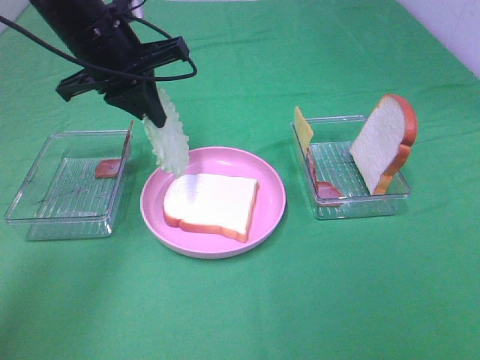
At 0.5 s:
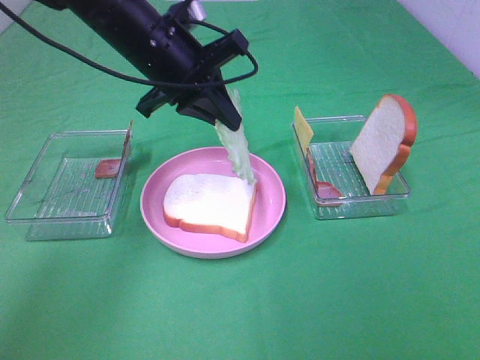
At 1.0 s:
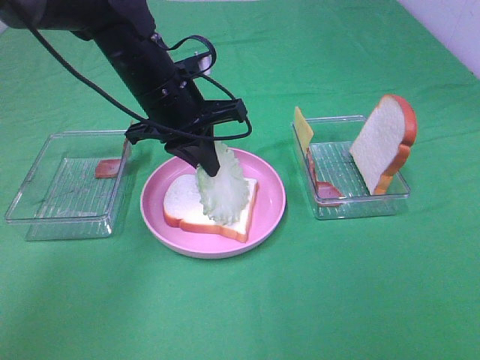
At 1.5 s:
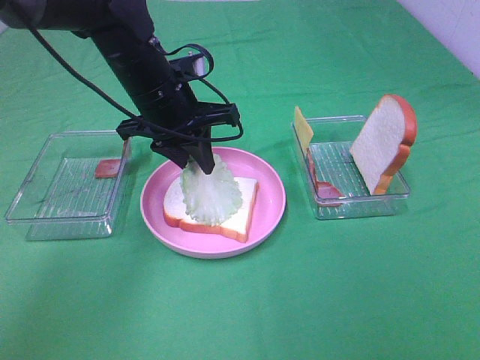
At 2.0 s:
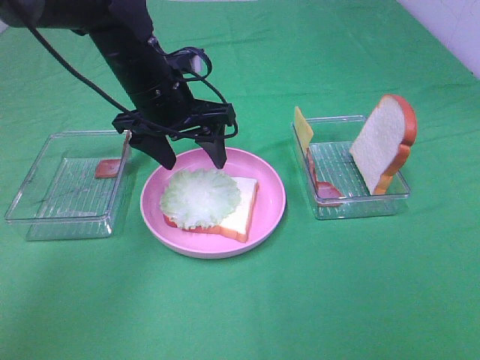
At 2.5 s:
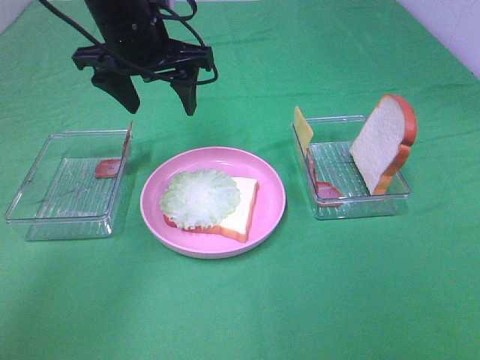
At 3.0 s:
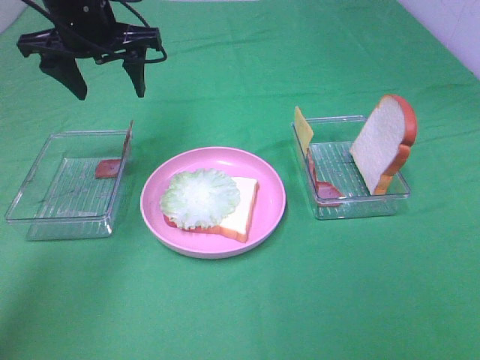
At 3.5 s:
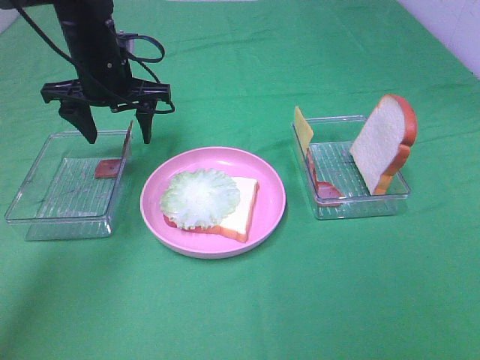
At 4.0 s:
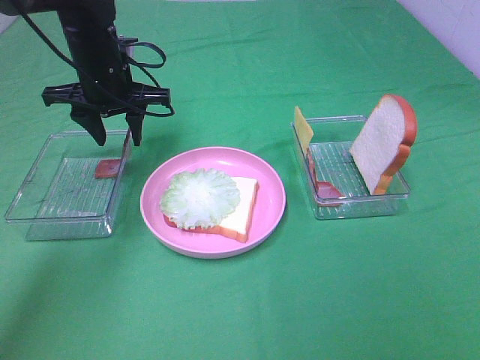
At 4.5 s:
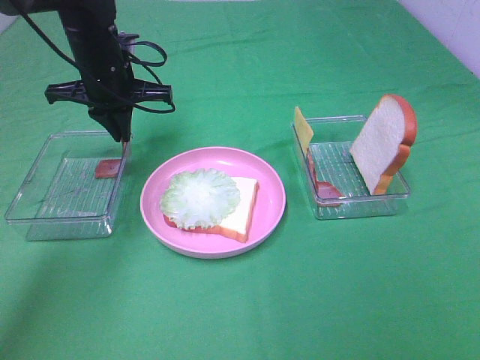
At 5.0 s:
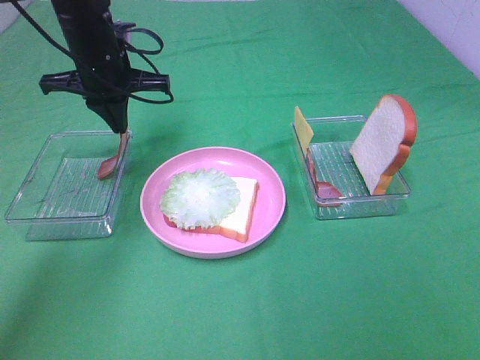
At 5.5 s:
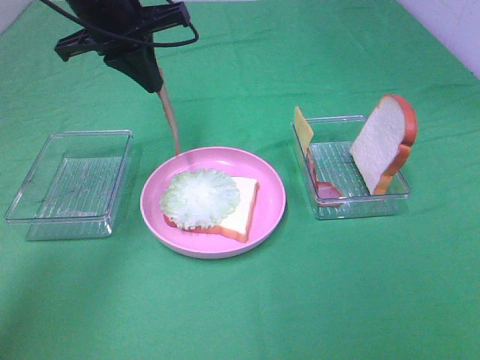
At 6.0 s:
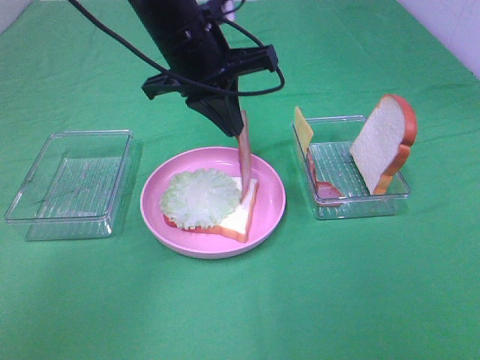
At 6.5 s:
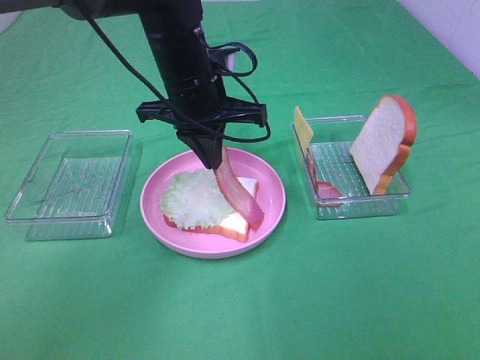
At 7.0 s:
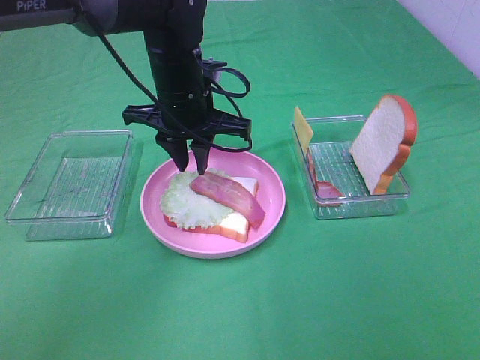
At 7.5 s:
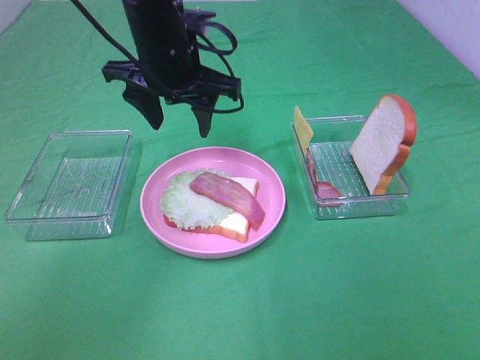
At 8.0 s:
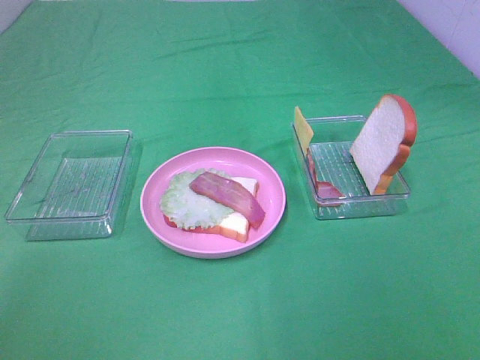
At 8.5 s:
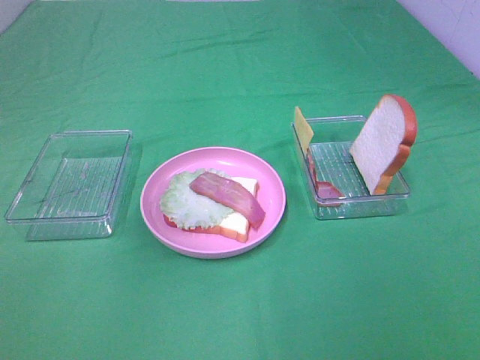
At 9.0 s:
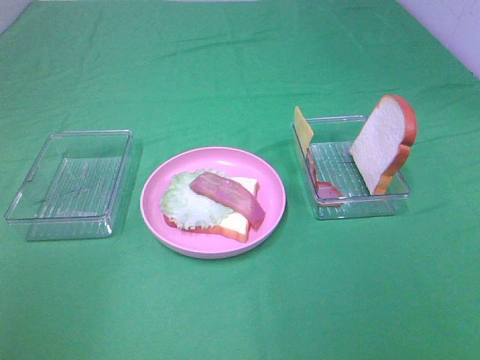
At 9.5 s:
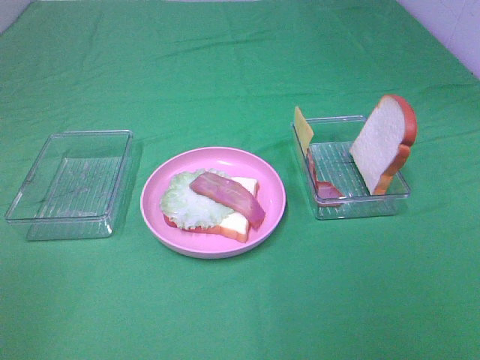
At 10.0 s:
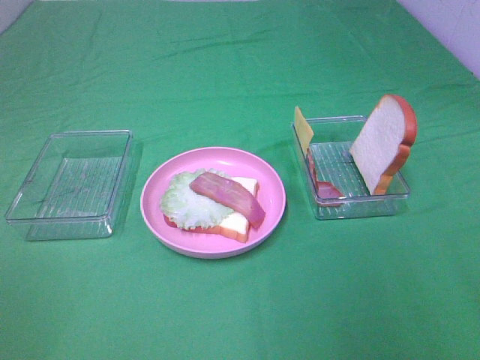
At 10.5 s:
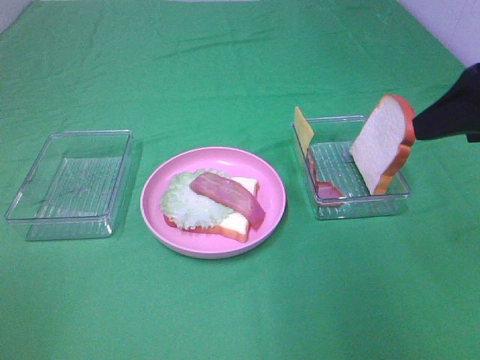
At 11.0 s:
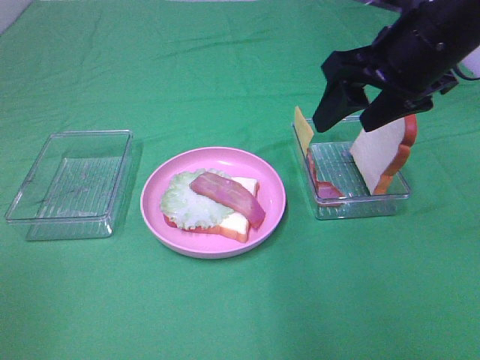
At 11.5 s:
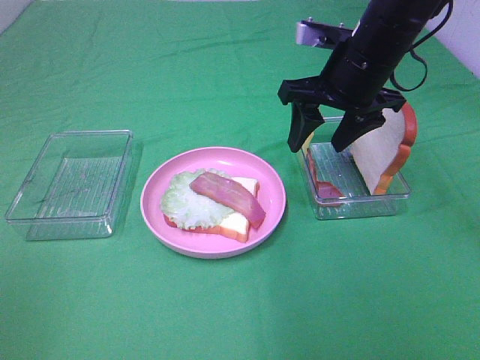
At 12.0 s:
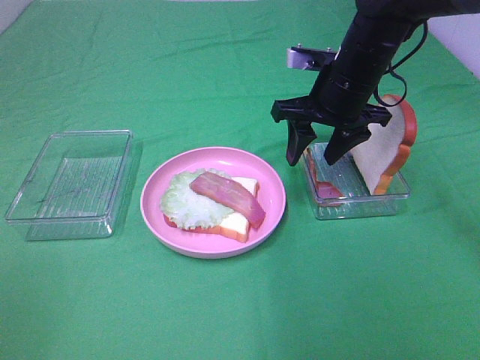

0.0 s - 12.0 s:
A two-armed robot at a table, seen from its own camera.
Task of the whole recording: Make sandwiches.
Step, 0.0 s - 2.0 s: Left hand:place the lettuce slice on the bread slice.
Step, 2.5 s - 4.5 s: Left hand:grab the bacon.
Step, 5.0 s - 7.0 s: Left hand:place bacon on lettuce slice.
0.0 s - 2.0 s: The left gripper goes approximately 5 cm downward, and opens its fingers.
2.0 s - 4.0 s: The left gripper goes roughly 10 cm to the left and forward, and moves approximately 5 cm upward and comes back.
4.0 s - 6.0 s: The left gripper is displaced to the right, backward and upward by about 15 cm, and closes its fingers.
6.0 s - 8.0 s: The left gripper shifts about 20 cm upward and to the left, and opens.
10.0 s - 12.0 s: The right gripper heads forward and to the left, covering some 30 cm.

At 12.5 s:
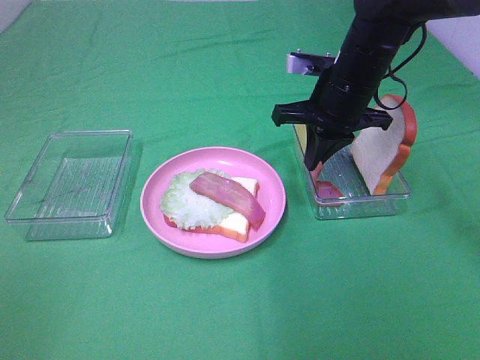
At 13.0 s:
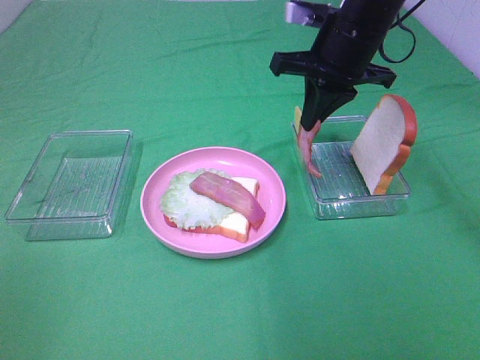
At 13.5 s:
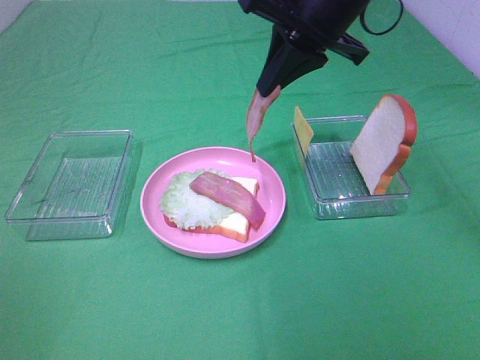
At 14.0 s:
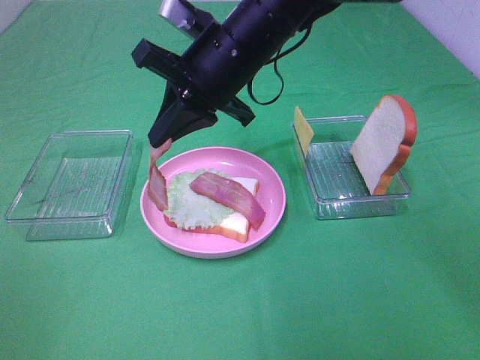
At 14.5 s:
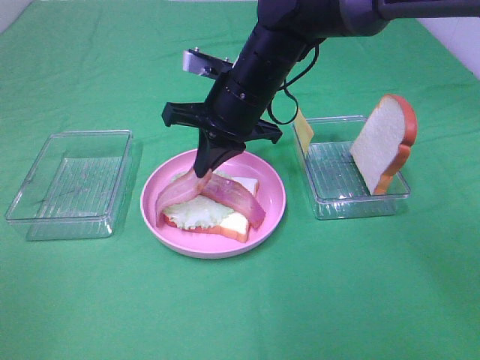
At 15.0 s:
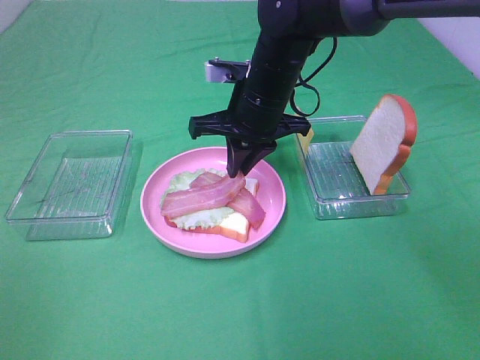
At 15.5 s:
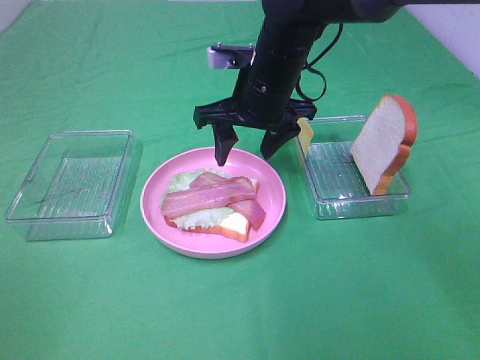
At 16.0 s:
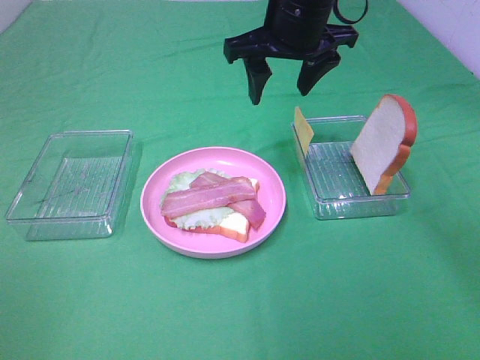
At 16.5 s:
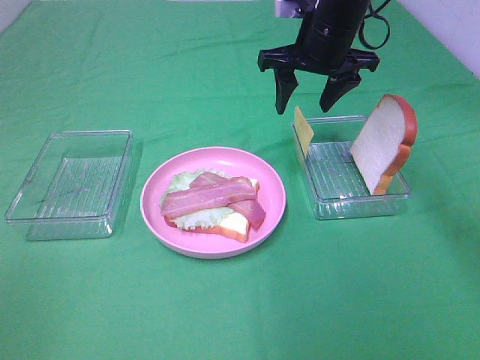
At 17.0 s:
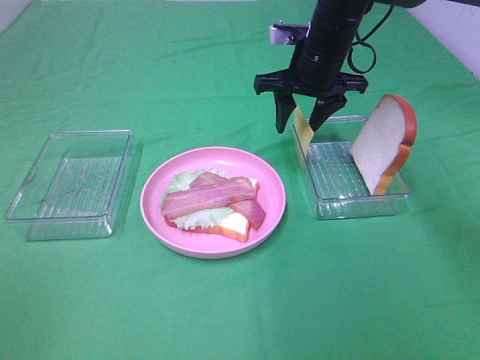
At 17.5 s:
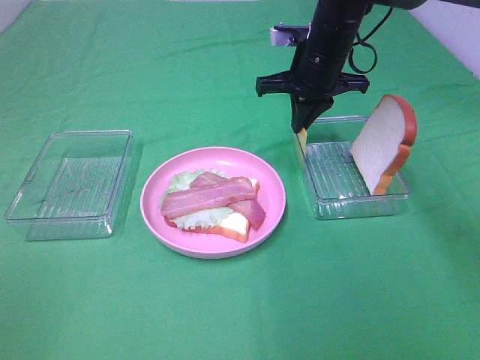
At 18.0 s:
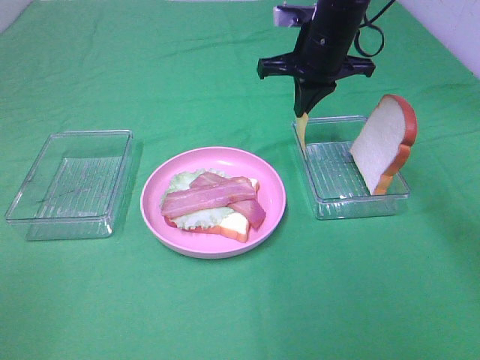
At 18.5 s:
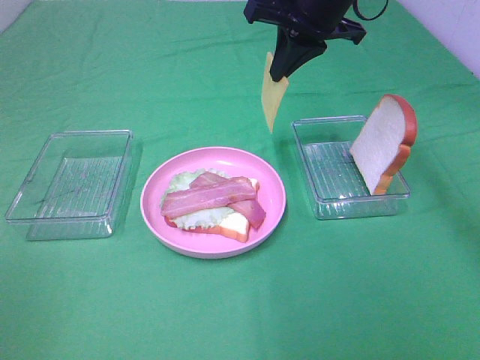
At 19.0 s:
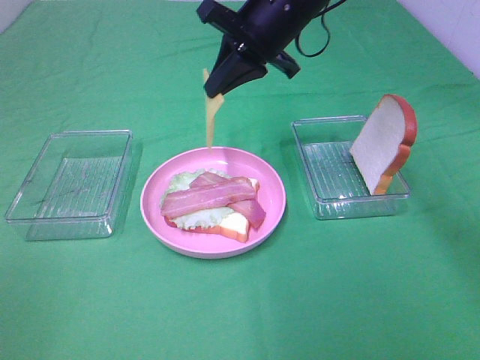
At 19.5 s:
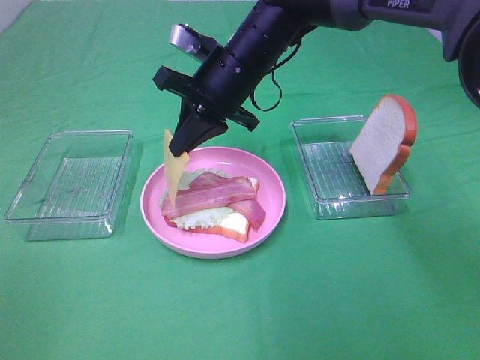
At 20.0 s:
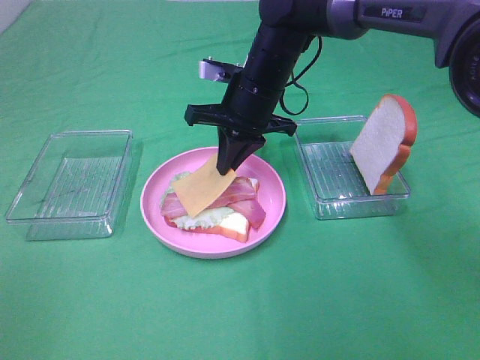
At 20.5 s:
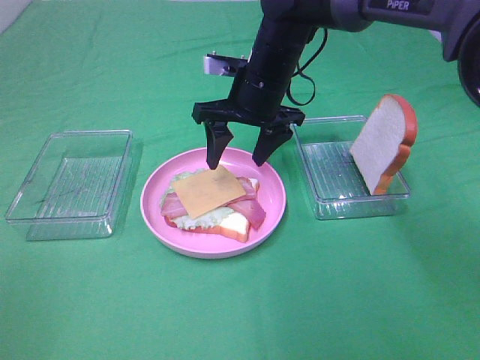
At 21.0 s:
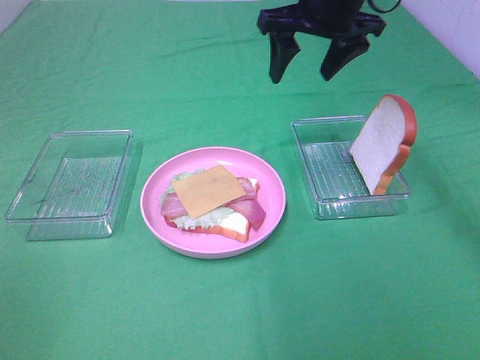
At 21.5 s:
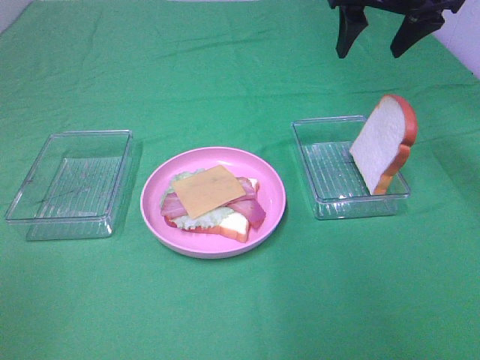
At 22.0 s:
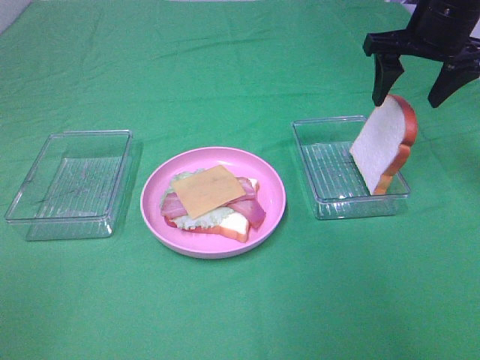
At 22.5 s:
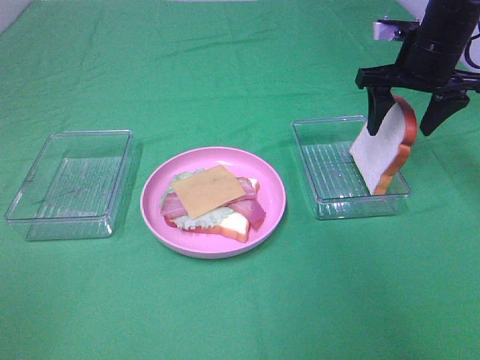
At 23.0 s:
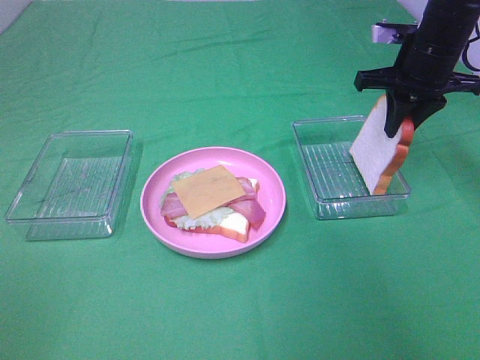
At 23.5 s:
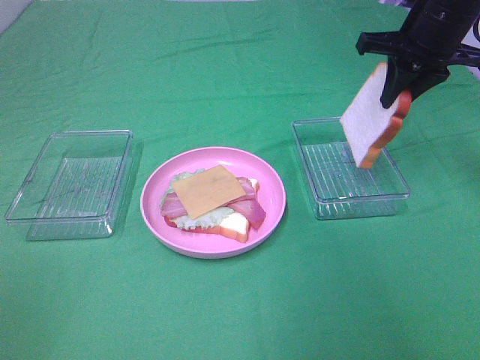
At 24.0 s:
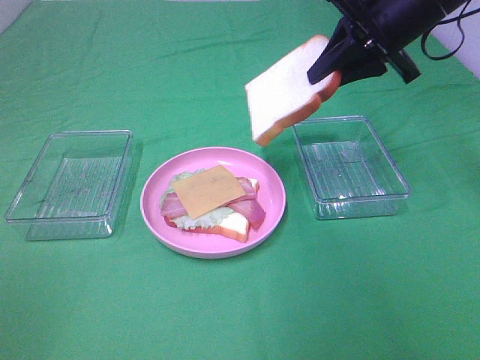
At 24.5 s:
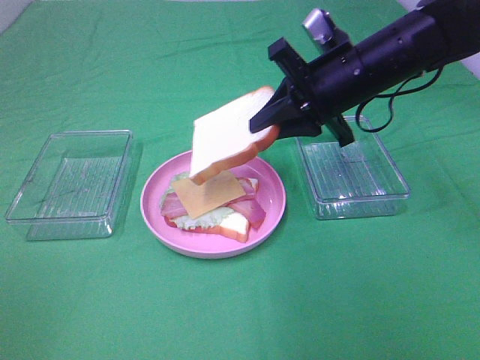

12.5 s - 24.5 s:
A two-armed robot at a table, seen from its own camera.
Task of the whole recording: Make sandwiches.
Step, 13.0 s - 15.0 s: Right hand:place bacon on bacon.
Step, 15.5 s - 17.5 s: Right hand:grab the cheese slice.
Step, 18.0 s - 20.0 s: Right hand:place the cheese slice on top of the bacon.
Step, 20.5 s - 23.0 s: Right hand:grab the bread slice.
12.5 s - 14.5 s: The right gripper shifts approximately 10 cm to the left.
14.5 s - 16.5 s: The right gripper moves to the right, forward and upward, approximately 15 cm, and opens its fingers.
16.5 s - 18.5 s: The right gripper travels upward by about 5 cm, and closes its fingers.
18.5 s - 20.5 s: The right gripper goes approximately 10 cm downward and to the left, and opens.
20.5 s - 22.5 s: The right gripper heads to the right, covering about 20 cm.
22.5 s - 24.5 s: The right gripper shifts approximately 10 cm to the left and backward, and closes up.

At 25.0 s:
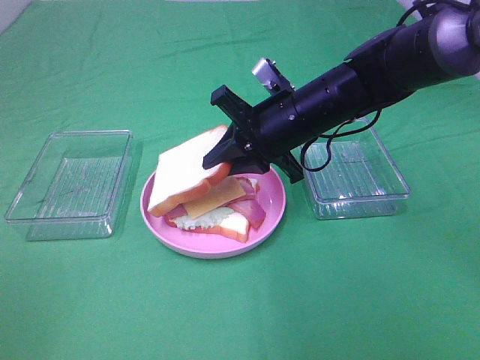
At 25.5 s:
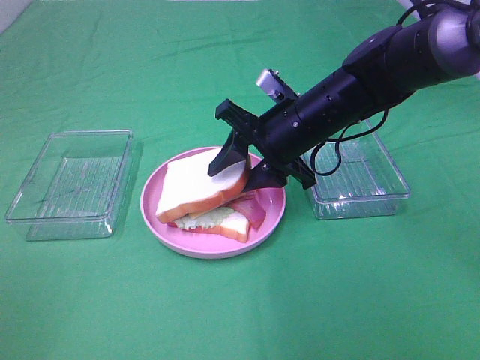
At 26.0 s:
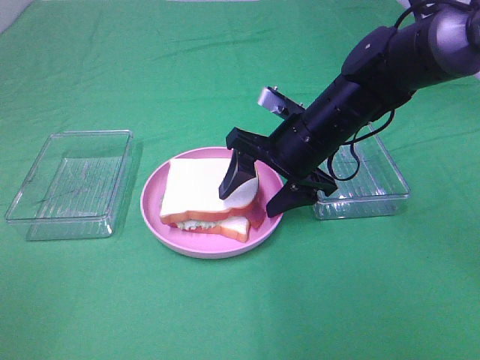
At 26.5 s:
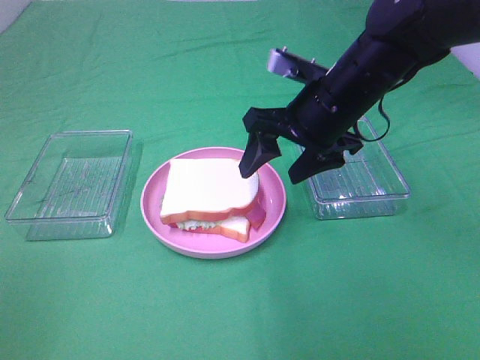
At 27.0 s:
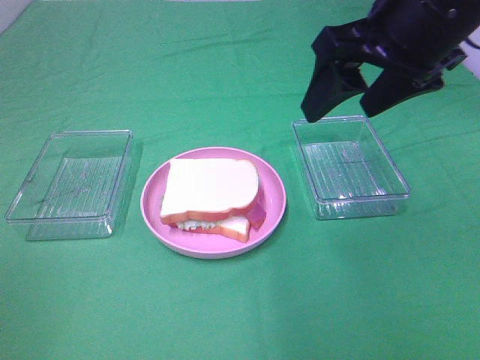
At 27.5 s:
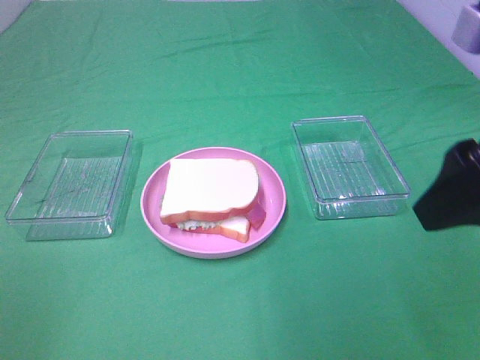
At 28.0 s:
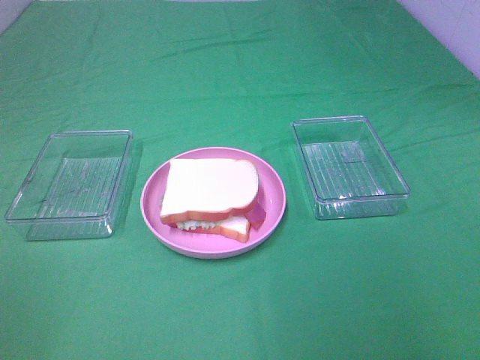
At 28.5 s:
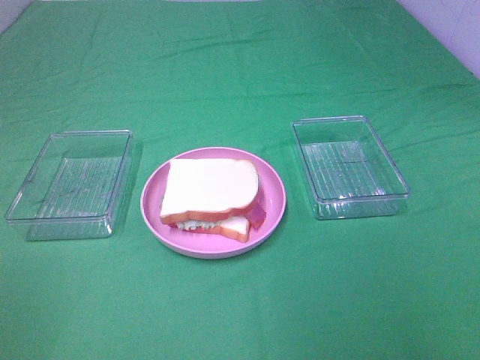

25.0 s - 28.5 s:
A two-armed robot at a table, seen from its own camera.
Task of the whole recording: Make sandwiches.
25.0 s - 27.0 s: The right gripper is displaced upward, backward and to the right by roughly 20 cm, and opens.
27.0 s - 28.5 s: The right gripper shifts some 30 cm backward and to the right.
